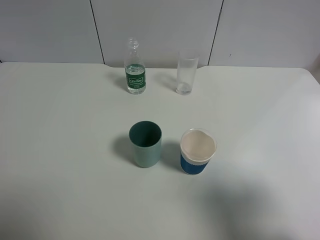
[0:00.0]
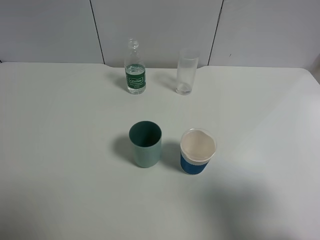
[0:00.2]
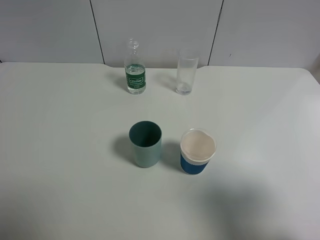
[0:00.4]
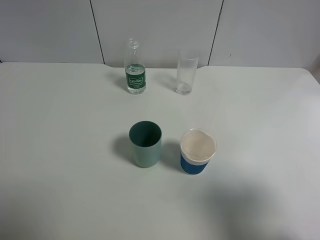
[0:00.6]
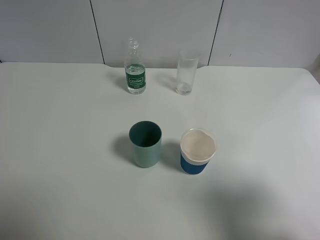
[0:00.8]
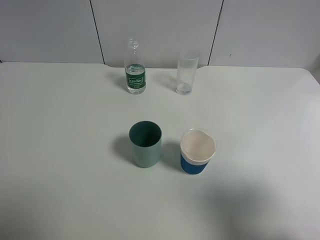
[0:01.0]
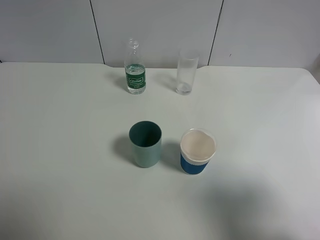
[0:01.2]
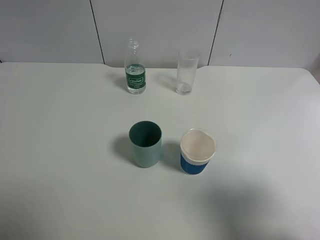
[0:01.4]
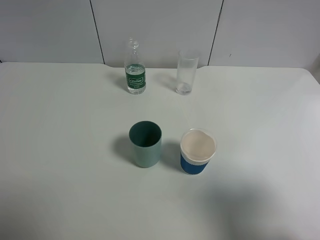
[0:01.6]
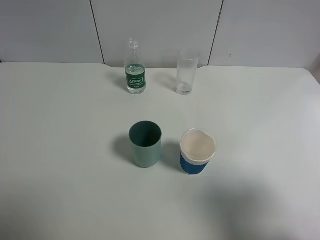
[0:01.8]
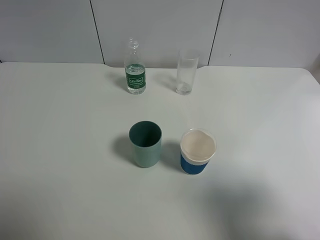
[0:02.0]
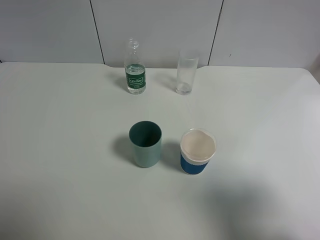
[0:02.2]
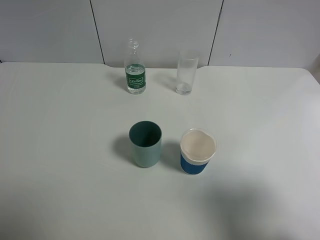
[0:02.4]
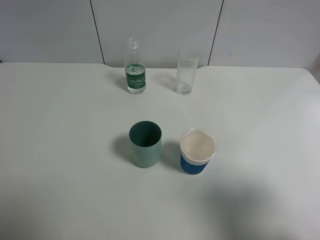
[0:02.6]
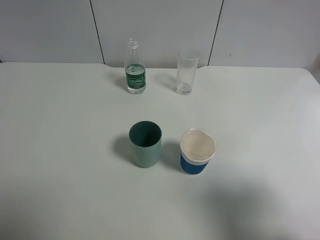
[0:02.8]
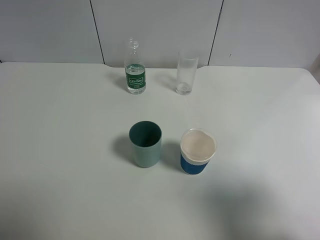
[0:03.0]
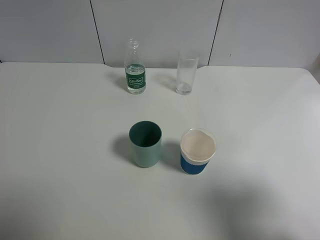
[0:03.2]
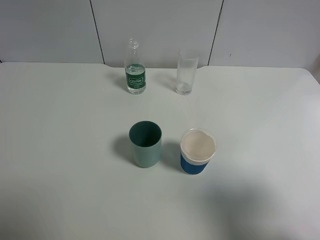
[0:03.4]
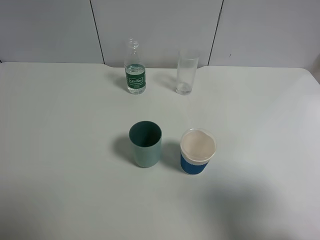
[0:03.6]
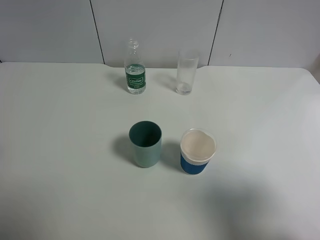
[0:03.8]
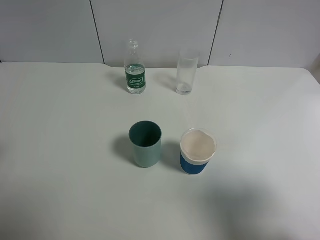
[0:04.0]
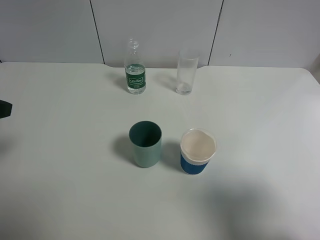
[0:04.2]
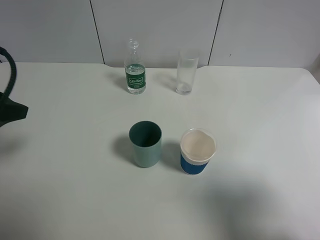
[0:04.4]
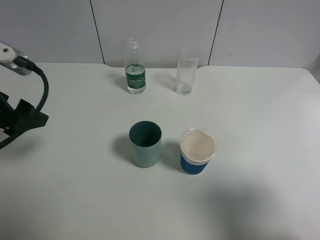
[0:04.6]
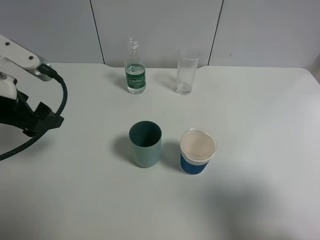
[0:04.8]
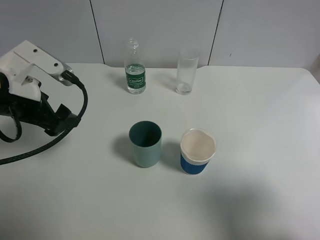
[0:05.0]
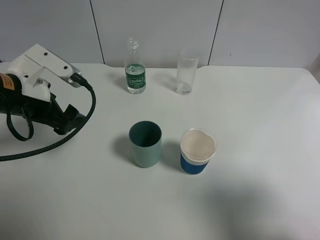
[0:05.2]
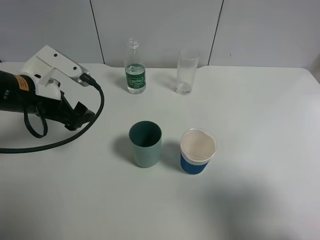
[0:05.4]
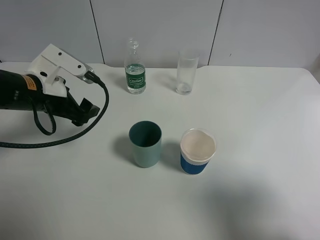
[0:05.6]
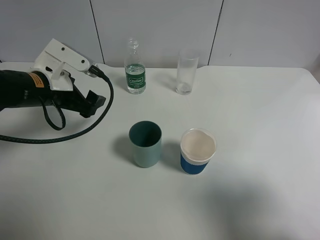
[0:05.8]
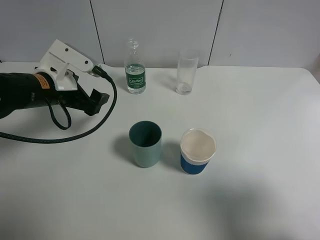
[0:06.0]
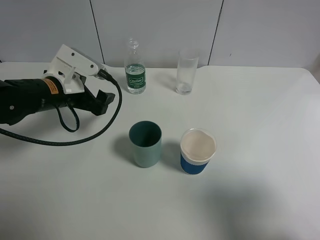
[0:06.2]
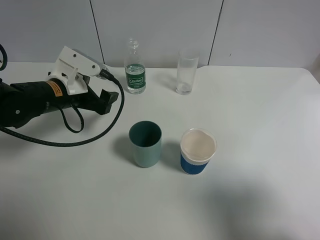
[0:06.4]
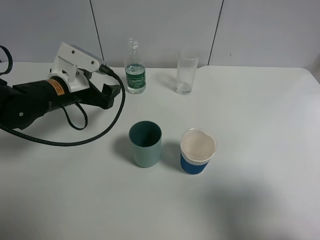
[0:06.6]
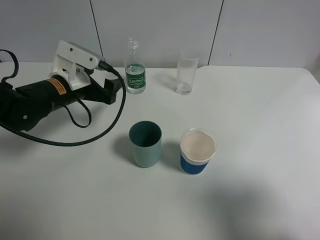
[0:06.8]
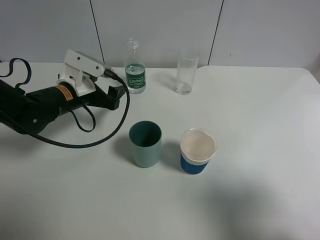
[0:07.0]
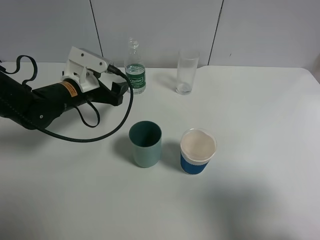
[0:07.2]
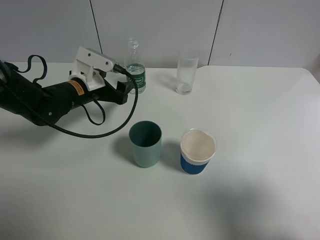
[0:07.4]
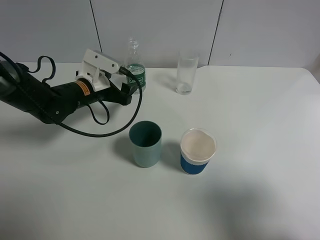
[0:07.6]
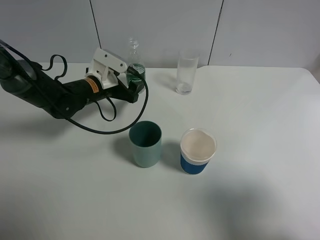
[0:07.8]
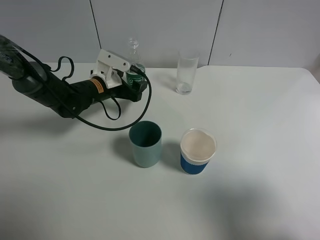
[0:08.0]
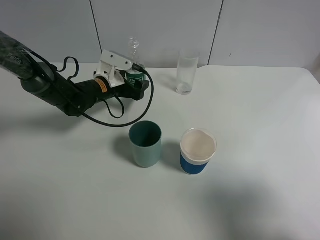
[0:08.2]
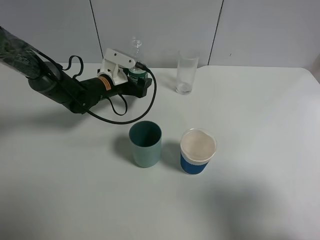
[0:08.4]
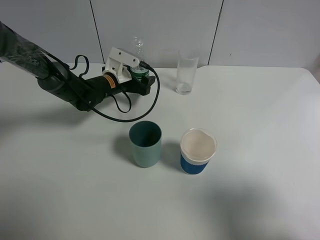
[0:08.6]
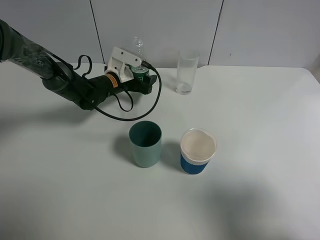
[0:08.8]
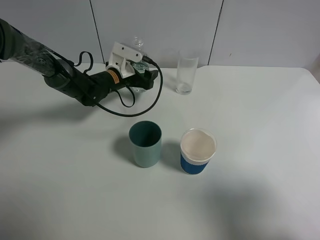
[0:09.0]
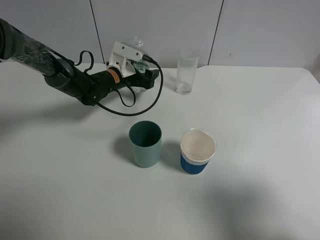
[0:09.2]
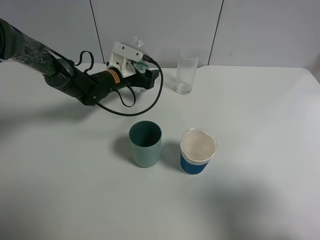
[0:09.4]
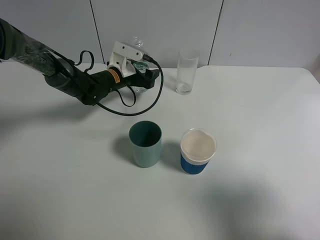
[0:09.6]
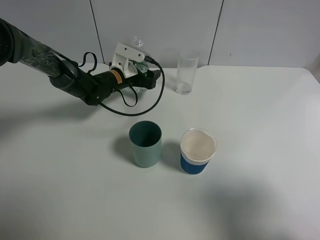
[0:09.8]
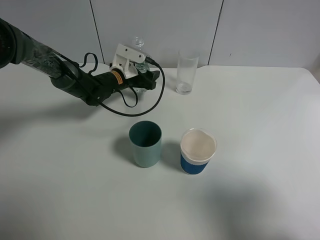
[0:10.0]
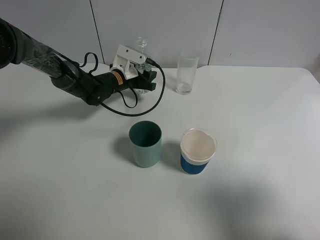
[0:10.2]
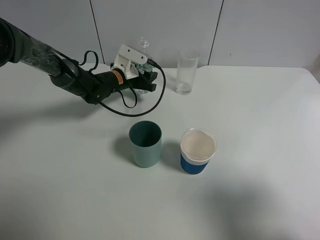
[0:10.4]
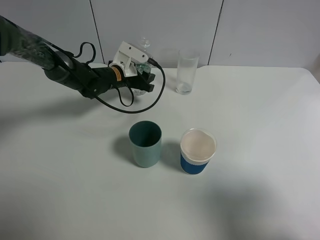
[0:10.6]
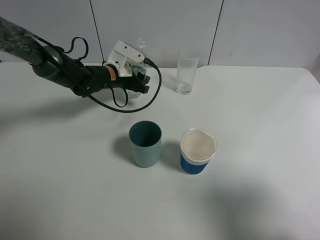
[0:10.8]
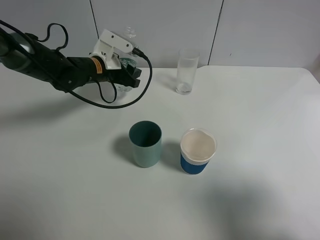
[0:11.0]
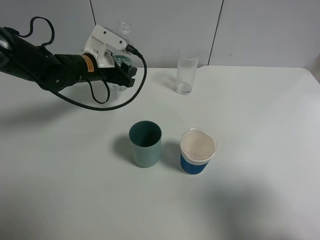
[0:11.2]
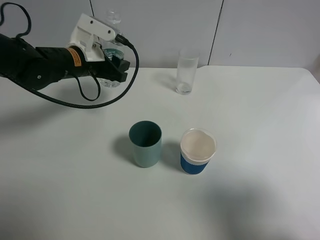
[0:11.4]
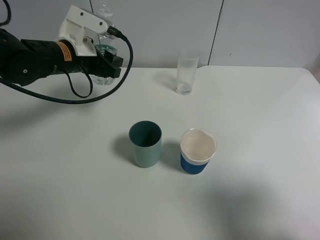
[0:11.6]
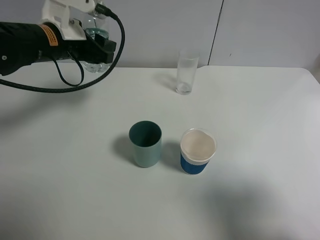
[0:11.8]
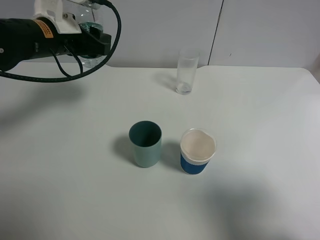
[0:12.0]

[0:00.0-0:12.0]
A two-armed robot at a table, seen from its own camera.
Task of the whole recording: use a gripper to hold the bottle of the drink and pour it into a random cup.
Step, 0:00.0 to 0:10.4: Grasp the mineral water bottle with the left gripper.
0:00.0 to 0:03.0: Both grippers stay put.
0:03.0 to 0:04.4: The left gripper shifts roughly 15 cm forward.
0:04.4 to 0:06.0: The left gripper moves forward, downward and to the right, about 15 cm.
0:06.0 to 0:07.6: The left gripper moves forward and downward, about 10 cm.
0:07.6 to 0:09.0: The left gripper travels forward by approximately 10 cm.
0:09.0 to 0:10.4: The left gripper closes up.
0:10.4 to 0:12.0: The left gripper shifts about 20 cm upward, backward and to the left.

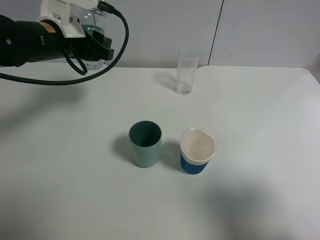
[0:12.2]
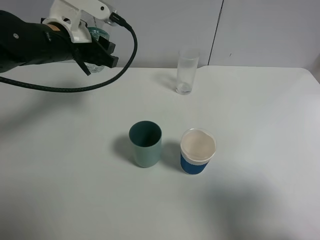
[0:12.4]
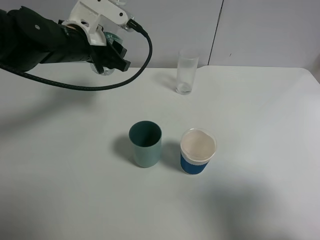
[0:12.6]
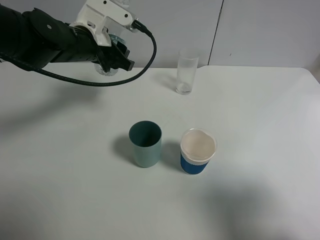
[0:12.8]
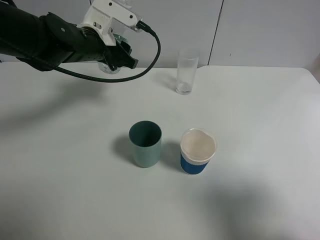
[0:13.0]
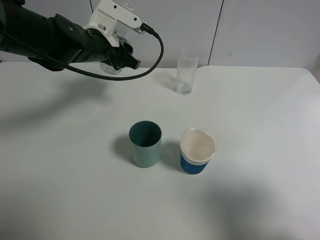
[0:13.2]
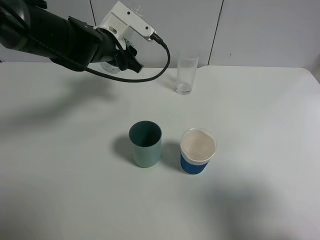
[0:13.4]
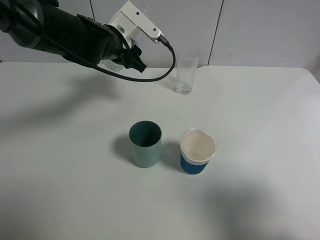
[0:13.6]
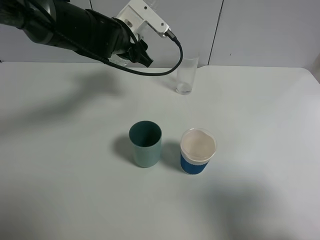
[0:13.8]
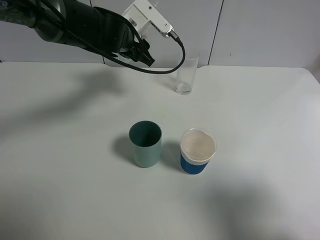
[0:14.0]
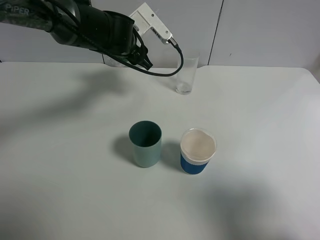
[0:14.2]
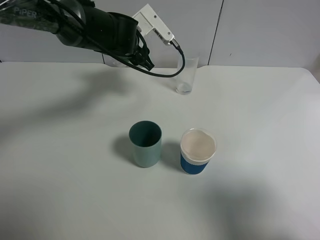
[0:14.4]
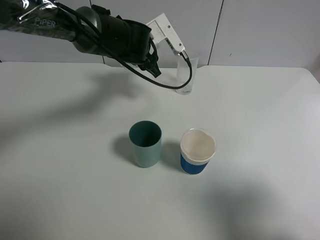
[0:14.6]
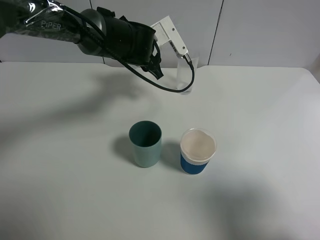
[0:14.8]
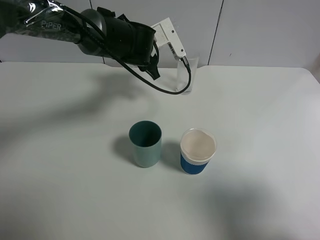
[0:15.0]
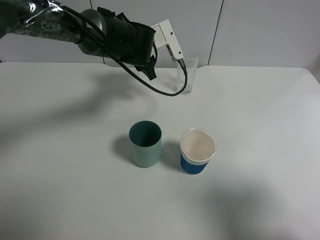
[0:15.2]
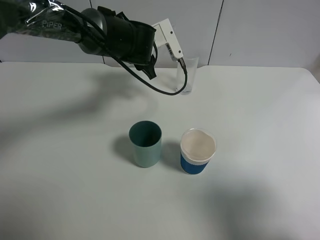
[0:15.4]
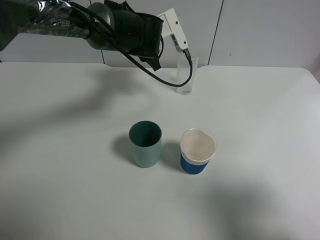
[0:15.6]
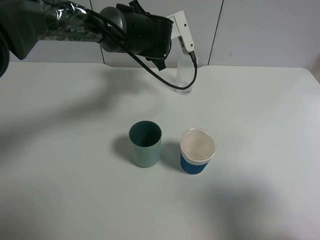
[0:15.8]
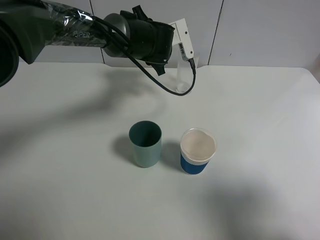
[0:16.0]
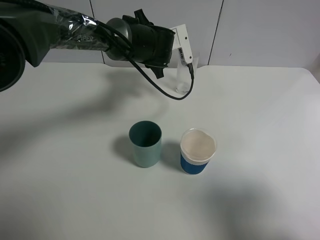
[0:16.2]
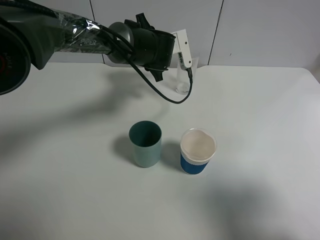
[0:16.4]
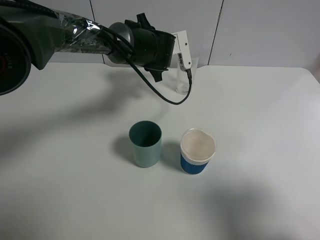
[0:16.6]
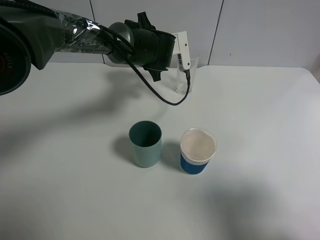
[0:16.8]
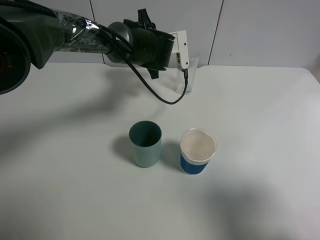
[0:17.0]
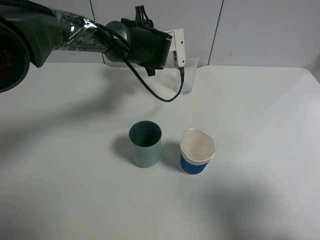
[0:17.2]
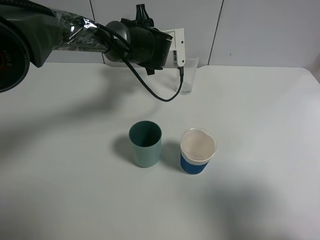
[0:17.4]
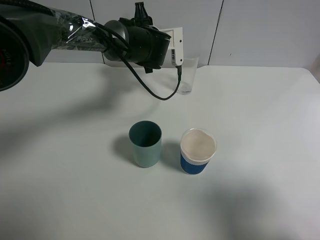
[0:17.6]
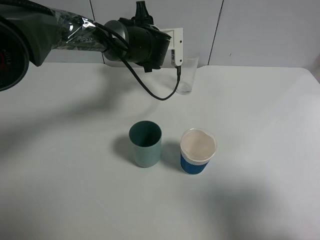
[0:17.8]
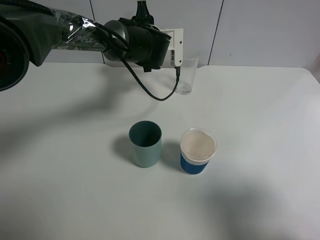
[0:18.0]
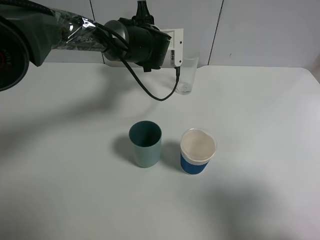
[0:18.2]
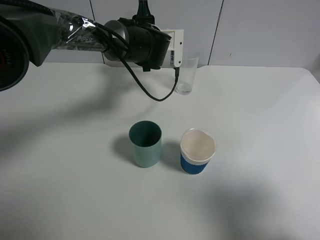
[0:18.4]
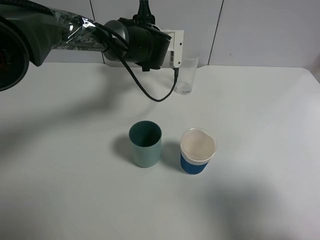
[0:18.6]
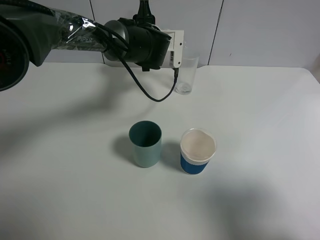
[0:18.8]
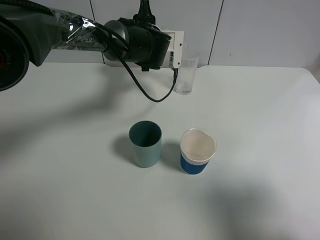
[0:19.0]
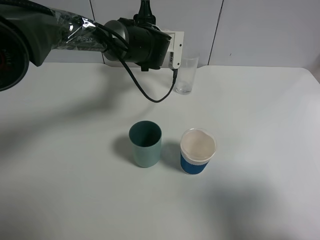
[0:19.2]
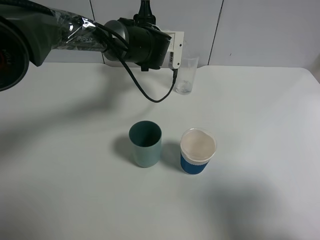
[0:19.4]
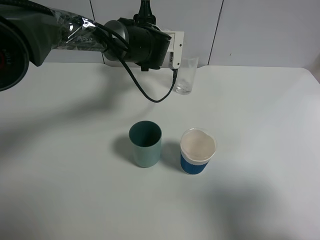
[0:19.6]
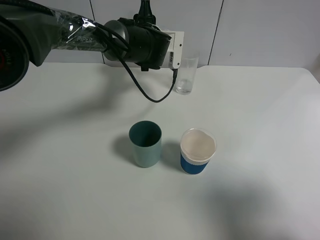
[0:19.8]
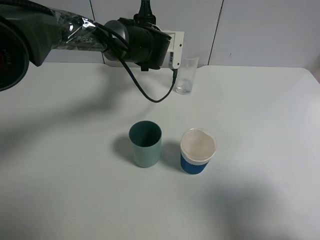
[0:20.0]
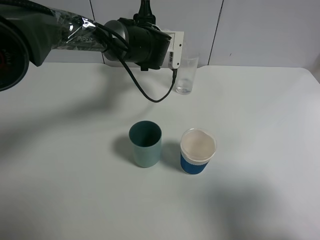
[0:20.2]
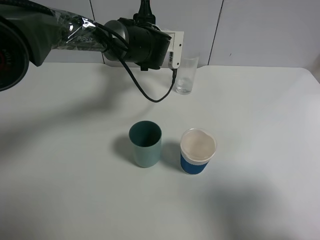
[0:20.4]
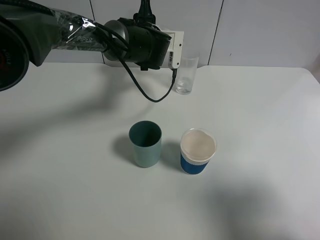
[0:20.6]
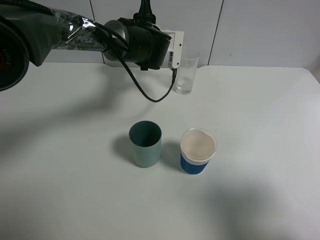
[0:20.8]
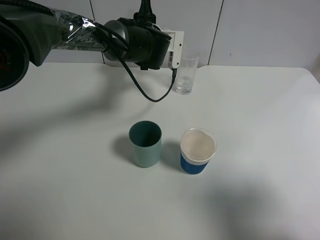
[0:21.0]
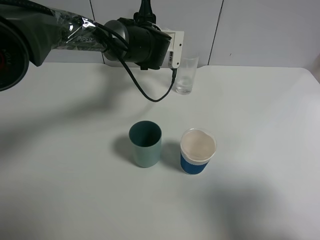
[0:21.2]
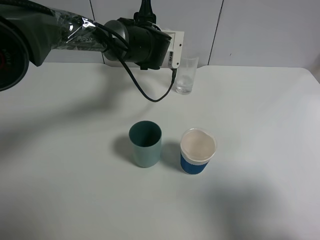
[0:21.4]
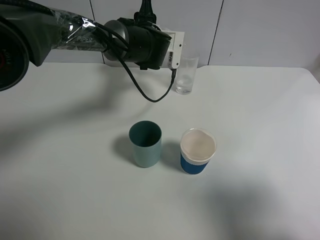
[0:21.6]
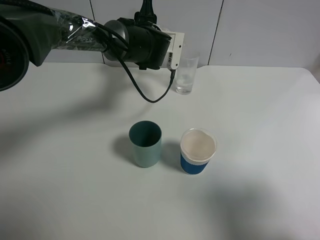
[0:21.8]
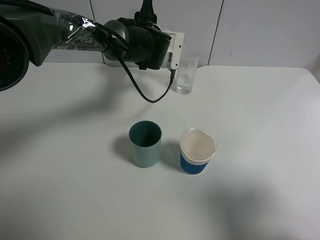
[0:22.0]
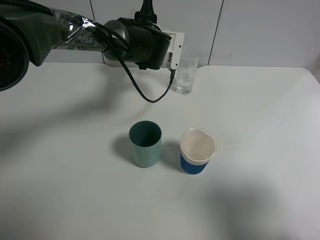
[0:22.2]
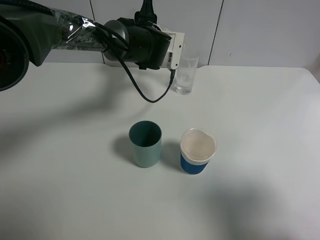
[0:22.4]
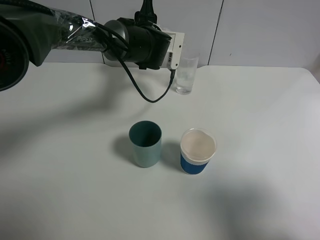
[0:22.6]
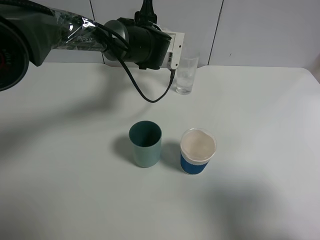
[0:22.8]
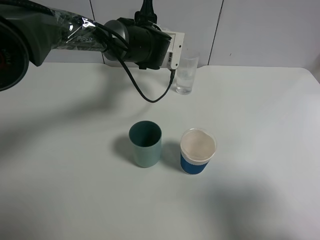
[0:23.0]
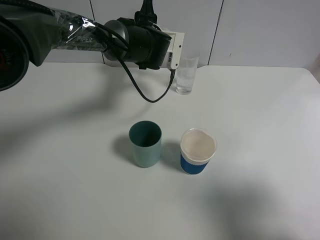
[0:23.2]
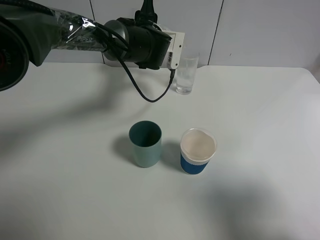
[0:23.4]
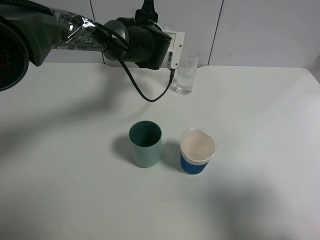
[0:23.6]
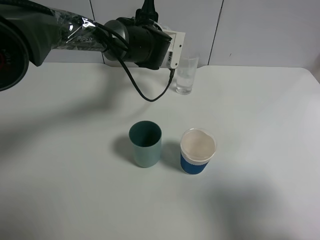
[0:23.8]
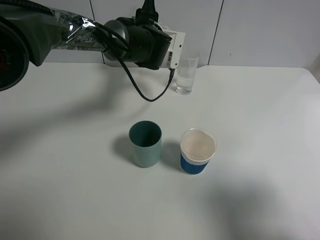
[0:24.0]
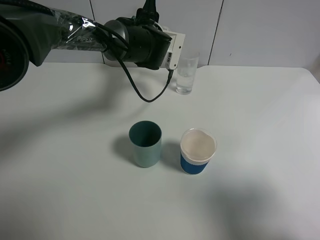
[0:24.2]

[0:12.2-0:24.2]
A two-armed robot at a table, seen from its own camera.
Task of the whole recording: use a gripper to hold the bottle of the drink and pour it into a random cup.
0:12.2 to 0:13.8: The left gripper shifts about 10 cm to the right and forward.
0:15.2 to 0:16.6: The grippers move only a little.
0:16.6 to 0:19.8: The grippers make only small movements.
0:19.8 to 0:22.6: Both grippers stay put.
0:22.6 to 0:24.2: Both grippers stay put.
